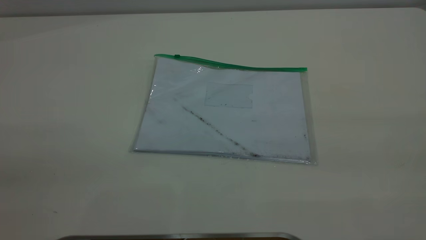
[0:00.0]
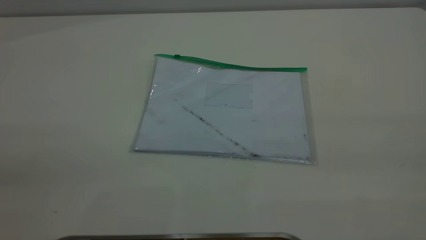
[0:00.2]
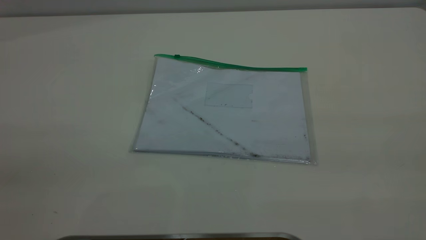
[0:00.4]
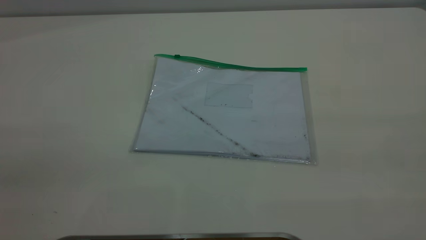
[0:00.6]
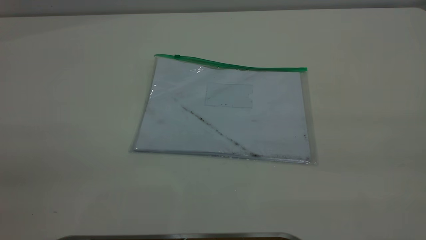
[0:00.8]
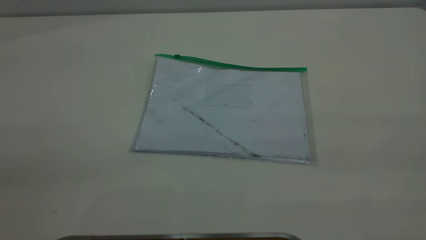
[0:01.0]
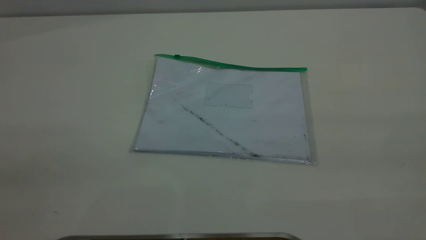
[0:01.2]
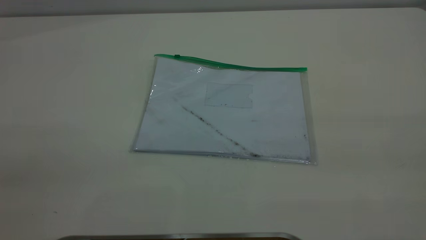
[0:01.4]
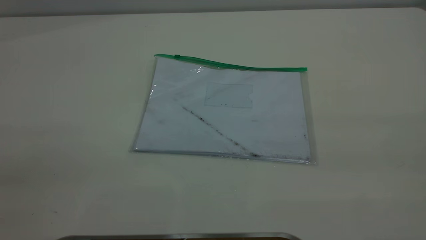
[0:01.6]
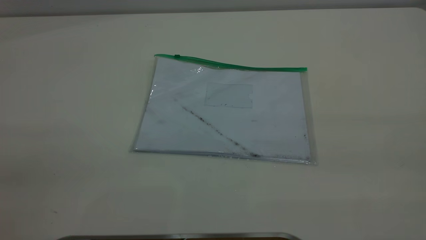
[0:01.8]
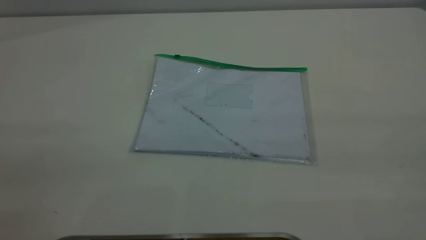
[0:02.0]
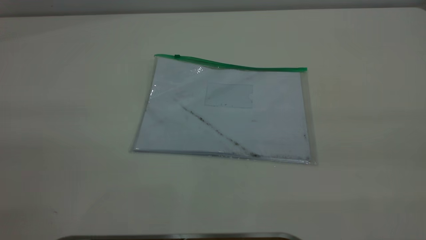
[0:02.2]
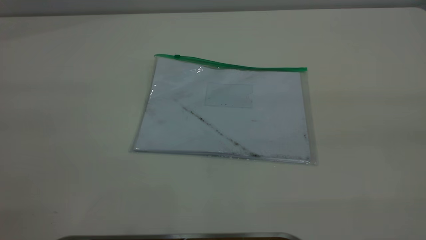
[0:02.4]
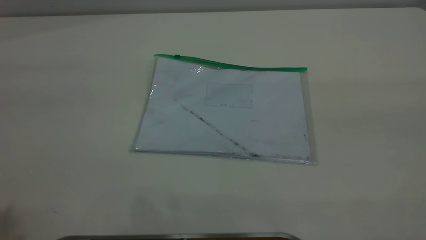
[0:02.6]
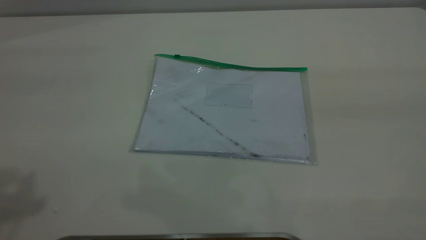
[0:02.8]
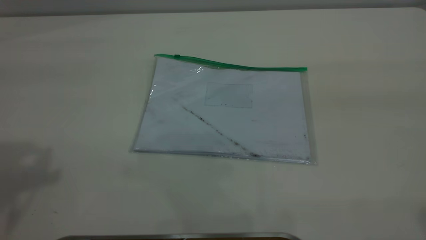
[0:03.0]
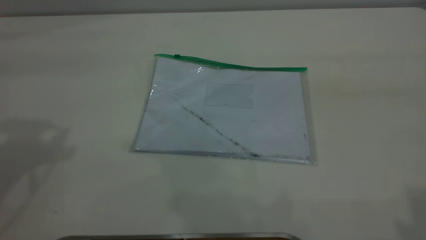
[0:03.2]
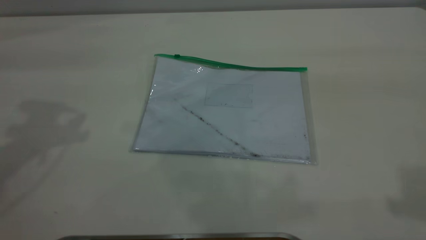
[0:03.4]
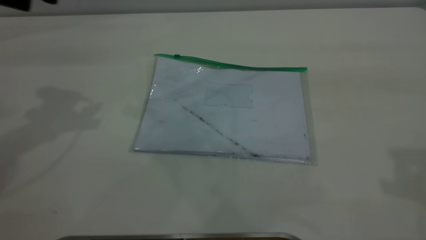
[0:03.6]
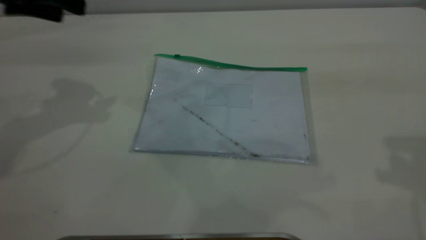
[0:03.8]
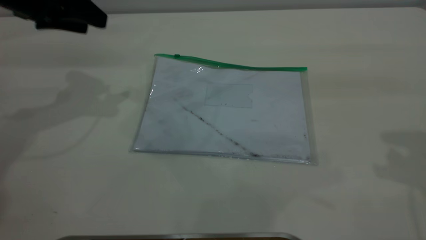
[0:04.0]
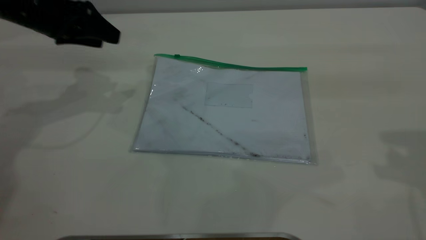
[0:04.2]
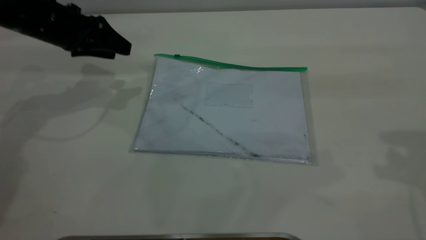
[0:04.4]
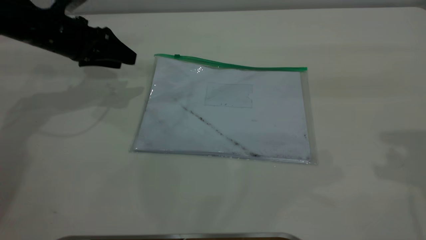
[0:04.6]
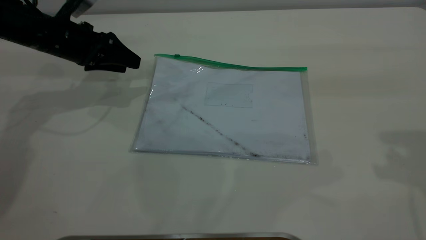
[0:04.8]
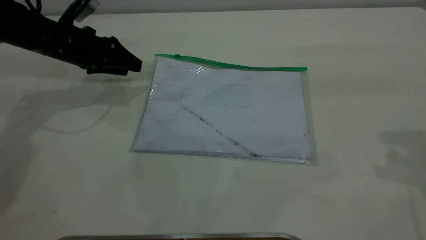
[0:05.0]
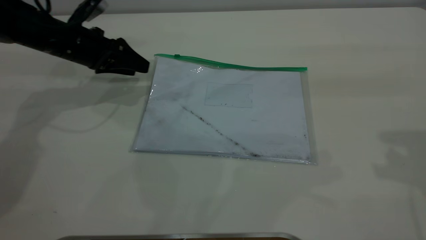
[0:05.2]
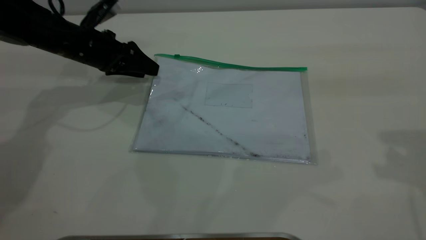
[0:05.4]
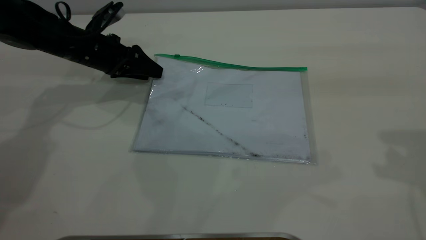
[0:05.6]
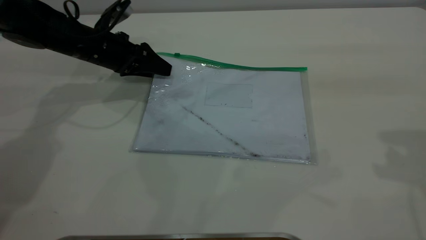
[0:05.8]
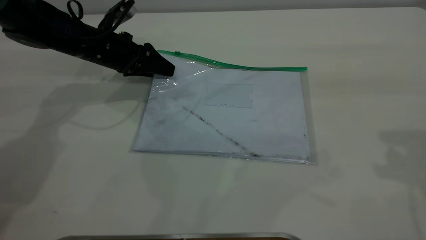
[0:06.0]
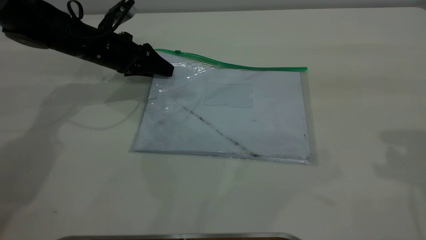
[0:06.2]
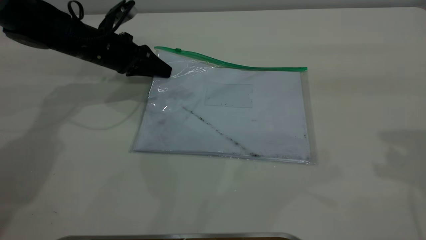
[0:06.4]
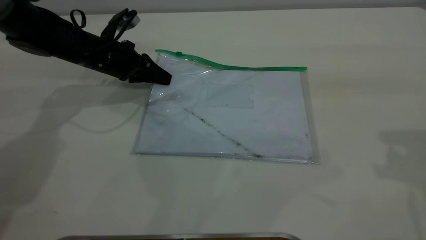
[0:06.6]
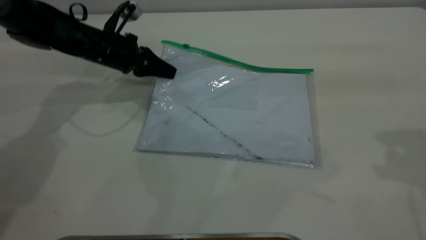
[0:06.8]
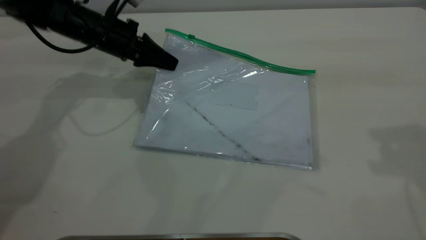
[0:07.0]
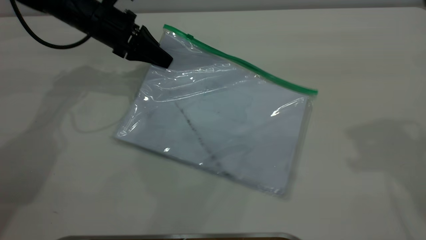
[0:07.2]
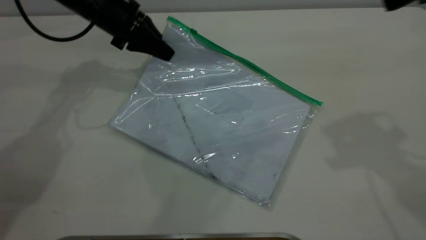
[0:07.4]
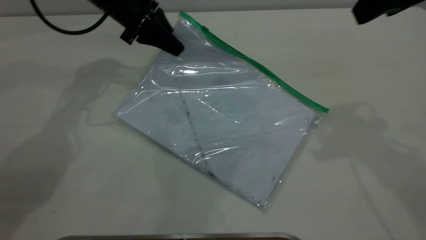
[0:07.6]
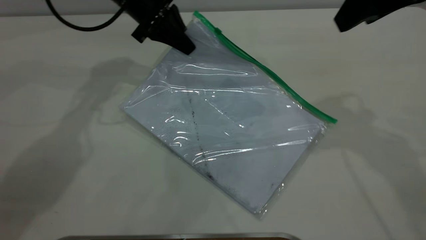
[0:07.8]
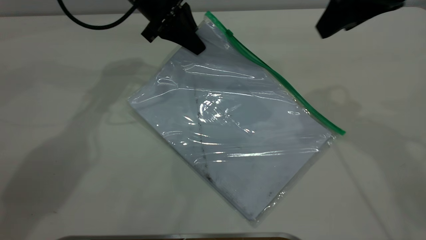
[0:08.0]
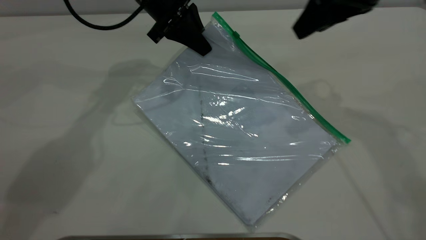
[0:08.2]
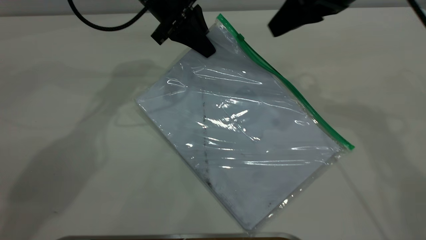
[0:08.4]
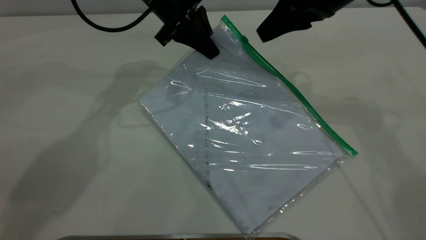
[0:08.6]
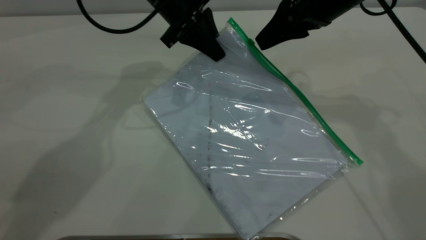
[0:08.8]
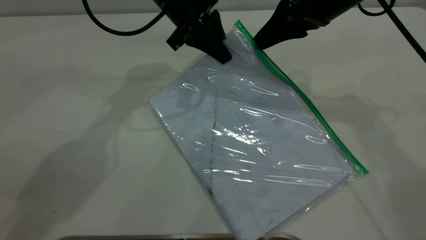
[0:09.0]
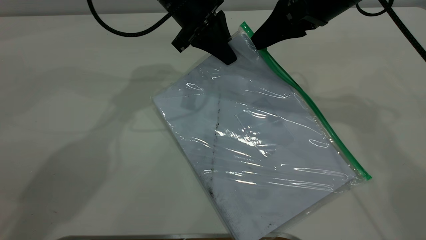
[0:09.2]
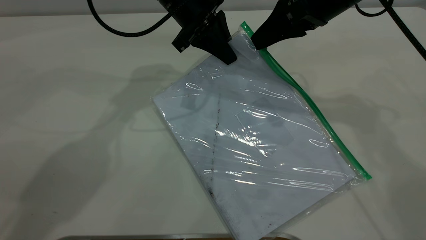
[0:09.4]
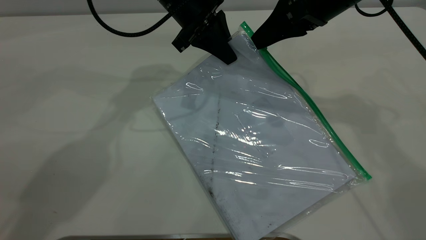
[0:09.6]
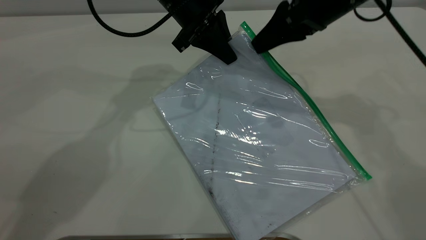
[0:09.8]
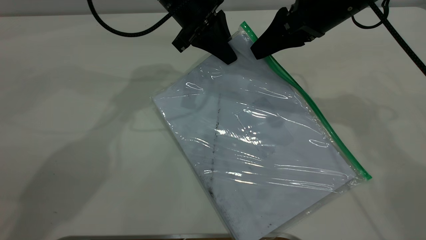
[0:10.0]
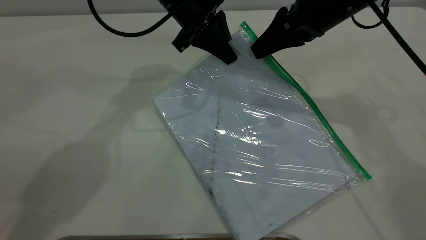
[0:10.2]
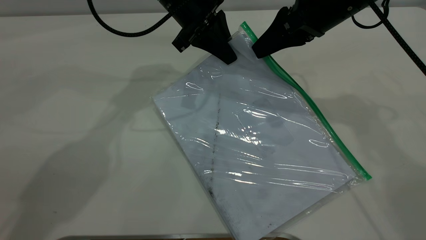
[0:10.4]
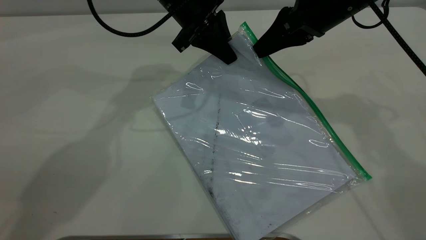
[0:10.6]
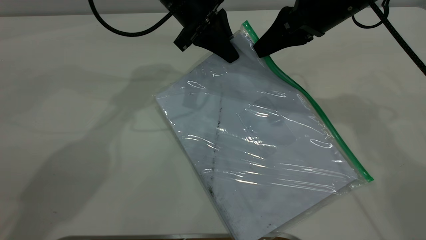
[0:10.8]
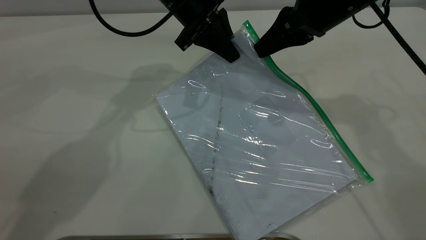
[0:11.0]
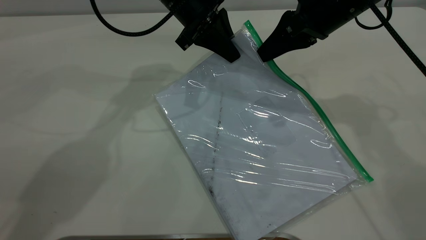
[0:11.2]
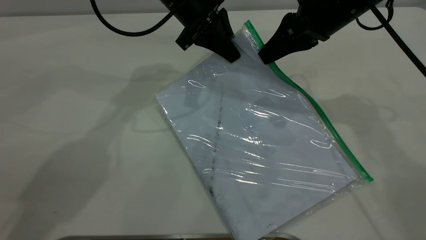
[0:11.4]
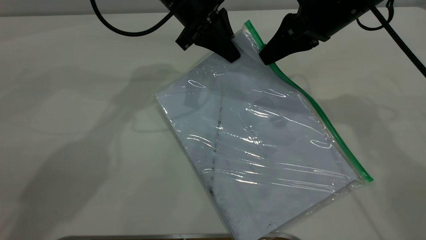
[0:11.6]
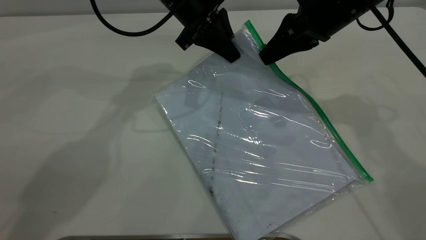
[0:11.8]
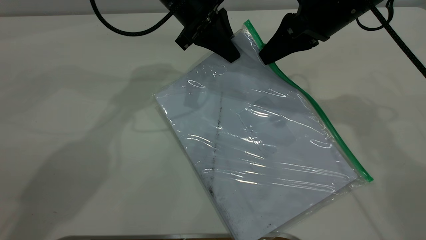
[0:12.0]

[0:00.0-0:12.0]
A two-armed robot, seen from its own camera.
Step, 0:00.0 to 0:07.4: Pick up the transparent plastic bag with the left gripper.
0:00.0 to 0:01.6: The two grippers keep their place.
0:03.0 to 0:04.4: The left gripper is displaced downward and forward by roughly 30 cm.
0:04.4 to 0:06.0: The left gripper goes approximately 10 cm downward and to the right.
0:06.0 to 0:07.6: The right gripper shifts approximately 10 cm to the left and forward, while the left gripper moves upward and to the right, about 10 cm, and closes up.
0:07.6 to 0:09.0: The left gripper moves to the right, approximately 10 cm; the right gripper shifts approximately 15 cm downward, forward and to the left.
0:09.0 to 0:10.4: The right gripper closes its fingers.
0:10.4 to 0:12.0: Both grippers stay about where they are.

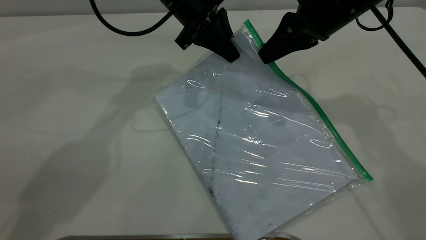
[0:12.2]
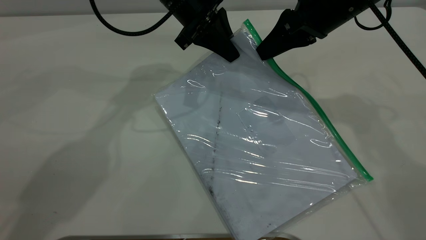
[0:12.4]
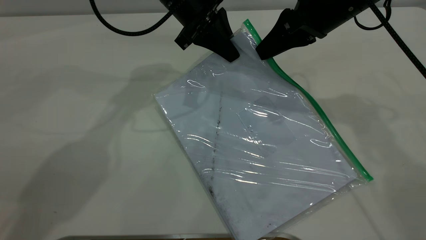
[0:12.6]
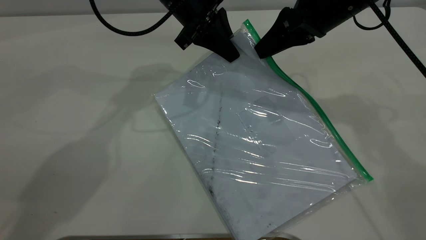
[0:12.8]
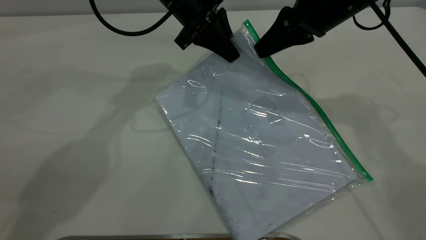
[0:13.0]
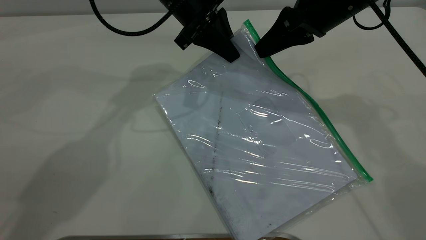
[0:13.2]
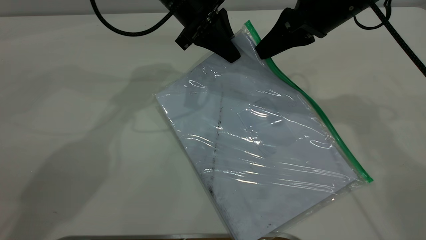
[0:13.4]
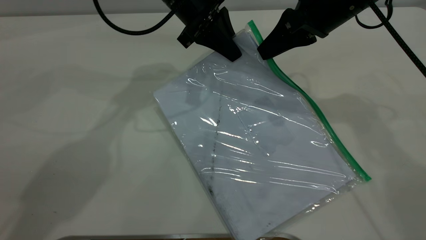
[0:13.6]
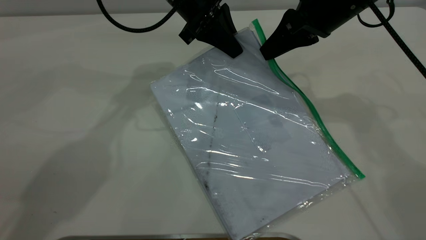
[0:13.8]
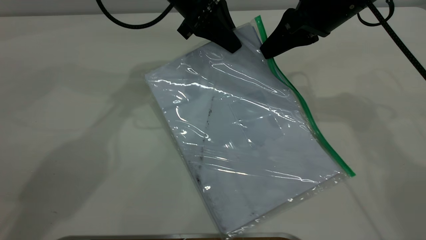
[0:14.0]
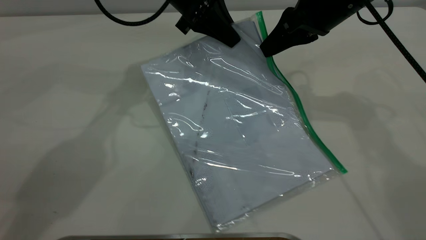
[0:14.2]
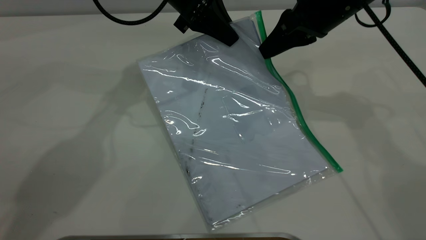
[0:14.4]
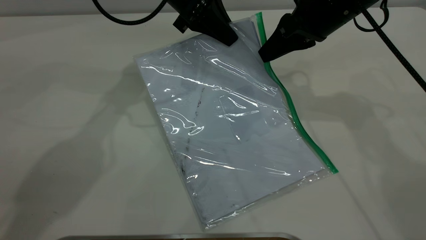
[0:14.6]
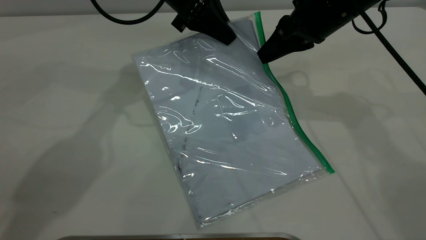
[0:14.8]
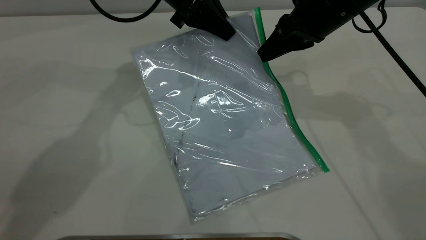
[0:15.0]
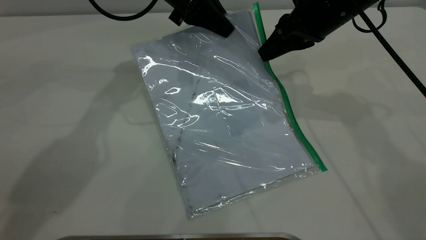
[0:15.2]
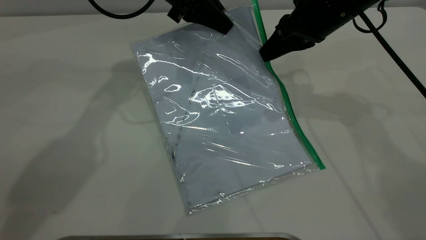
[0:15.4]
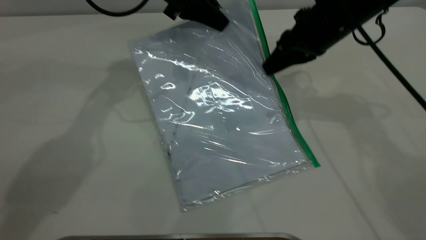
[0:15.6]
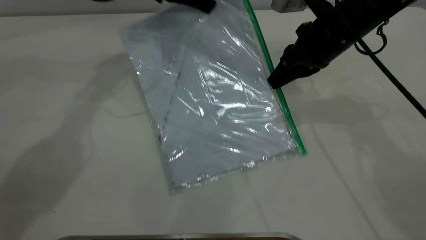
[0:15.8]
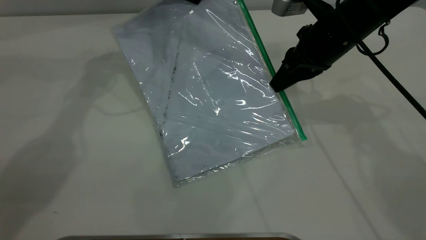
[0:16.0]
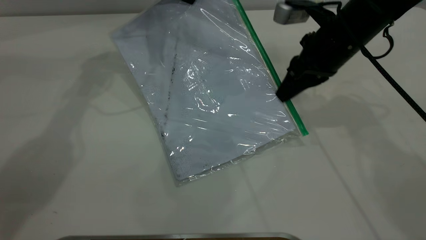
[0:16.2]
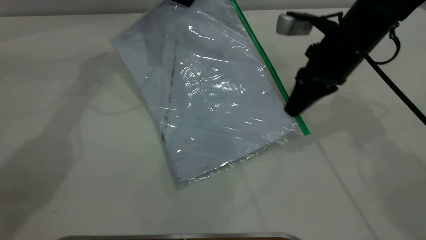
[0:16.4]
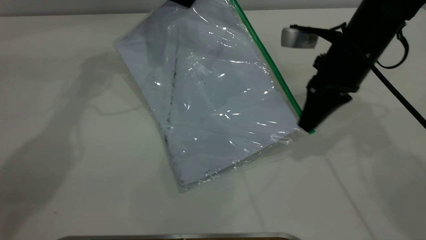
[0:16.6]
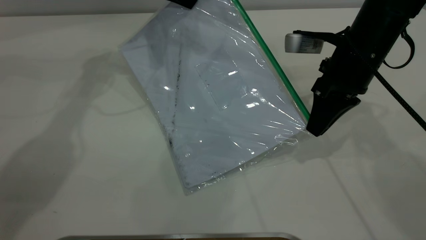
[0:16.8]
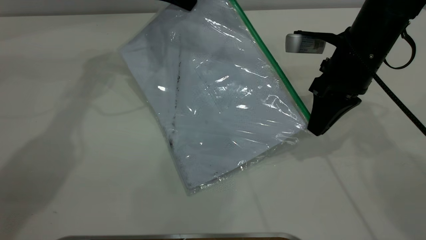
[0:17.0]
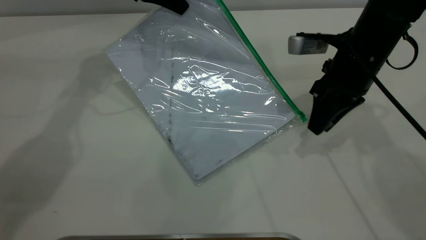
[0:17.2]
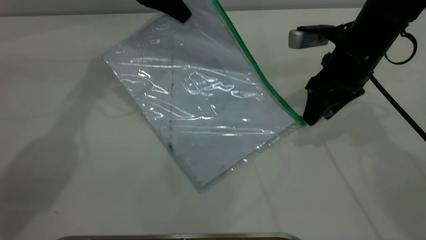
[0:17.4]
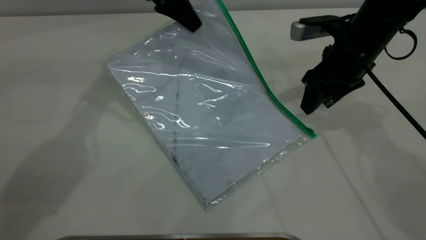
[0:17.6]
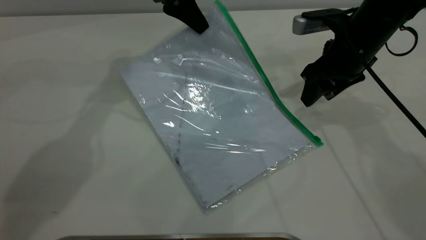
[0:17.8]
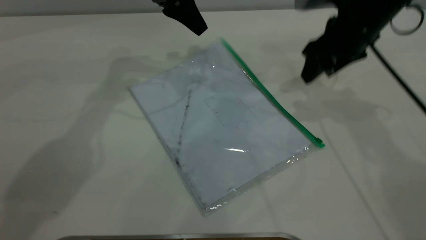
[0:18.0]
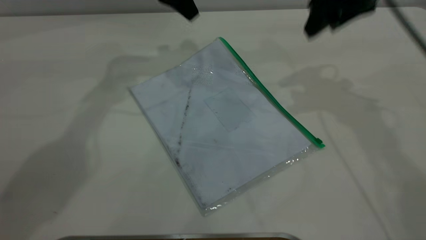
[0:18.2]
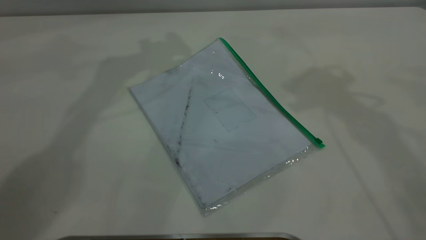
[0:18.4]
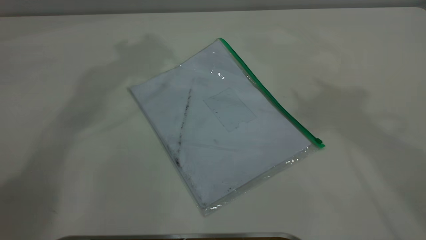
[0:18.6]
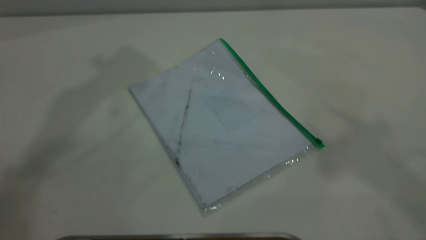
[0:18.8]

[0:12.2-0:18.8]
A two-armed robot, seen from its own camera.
Step, 0:12.2 to 0:17.4: Pulling up the zipper on the transparent plastic bag with the right gripper to close it.
Step, 0:17.6 to 0:18.0: Place the transparent plastic bag.
0:12.2 to 0:13.8: Both grippers stay put.
0:13.8 to 0:15.4: There are only small adjustments of the grippers.
0:15.4 to 0:17.2: The left gripper shifts approximately 5 cm to the left, while the right gripper ends up approximately 5 cm from where it was, and opens.
0:17.2 to 0:18.8: The grippers both shift upward by roughly 35 cm. The left gripper opens its fingers; the right gripper opens up.
